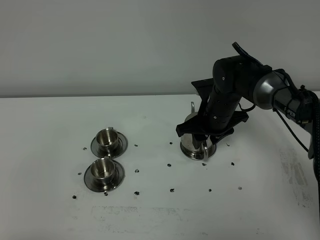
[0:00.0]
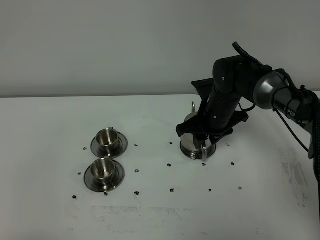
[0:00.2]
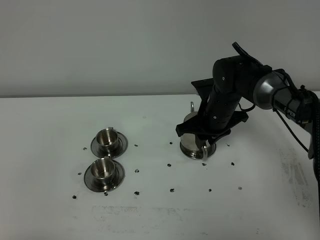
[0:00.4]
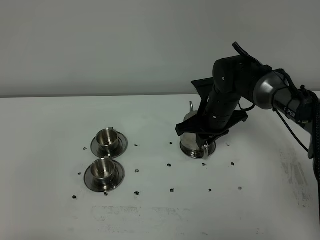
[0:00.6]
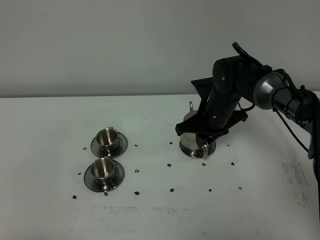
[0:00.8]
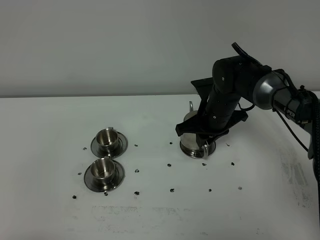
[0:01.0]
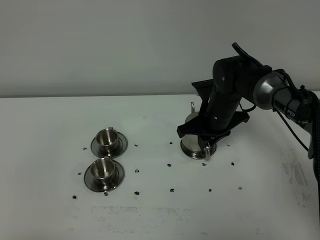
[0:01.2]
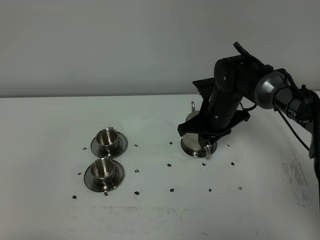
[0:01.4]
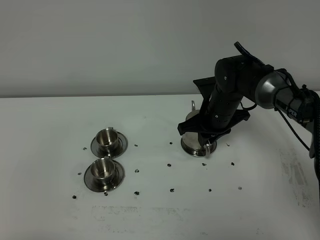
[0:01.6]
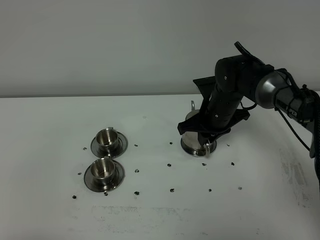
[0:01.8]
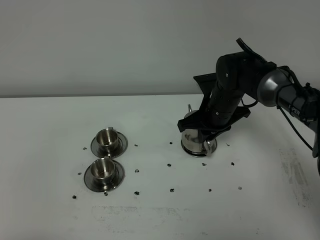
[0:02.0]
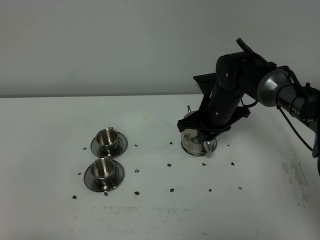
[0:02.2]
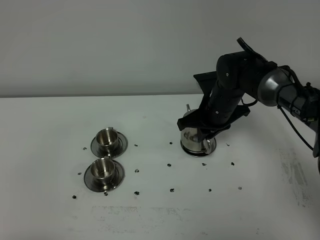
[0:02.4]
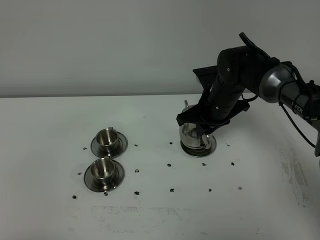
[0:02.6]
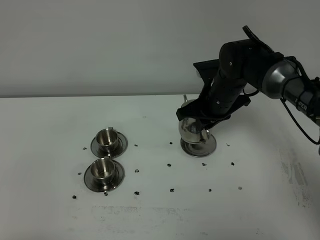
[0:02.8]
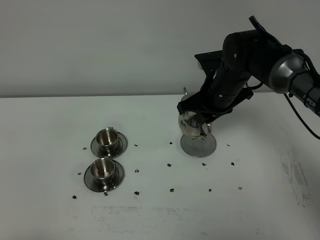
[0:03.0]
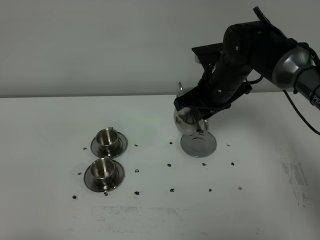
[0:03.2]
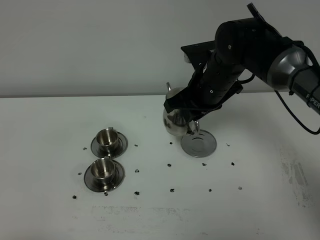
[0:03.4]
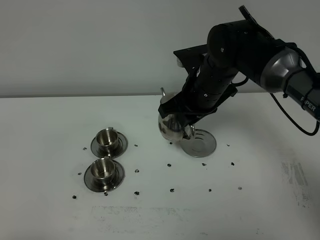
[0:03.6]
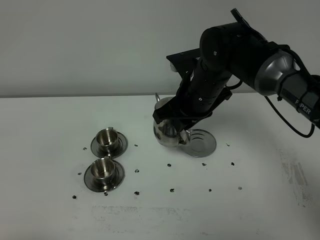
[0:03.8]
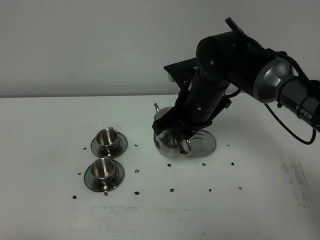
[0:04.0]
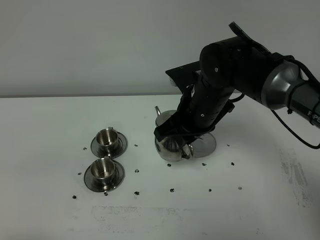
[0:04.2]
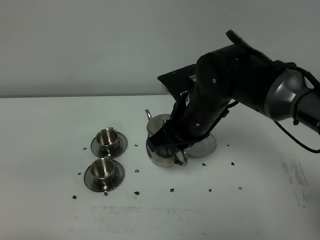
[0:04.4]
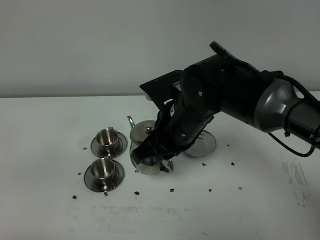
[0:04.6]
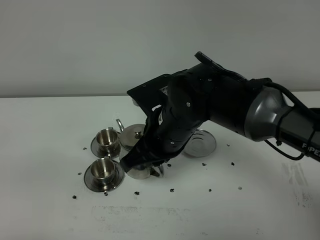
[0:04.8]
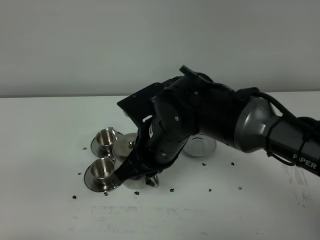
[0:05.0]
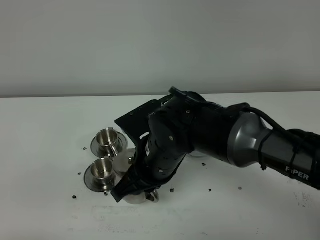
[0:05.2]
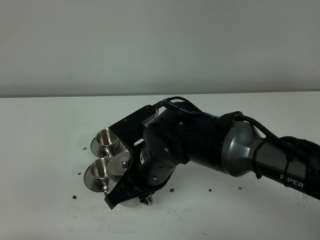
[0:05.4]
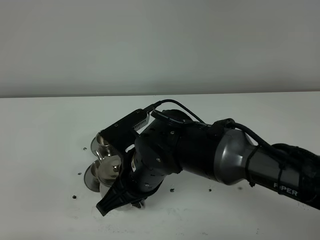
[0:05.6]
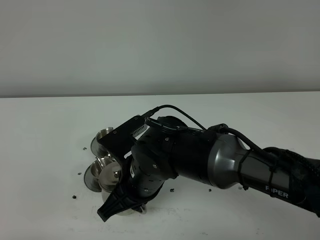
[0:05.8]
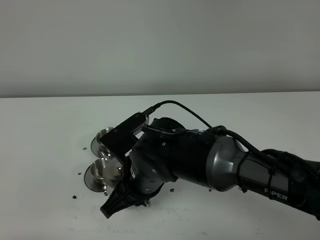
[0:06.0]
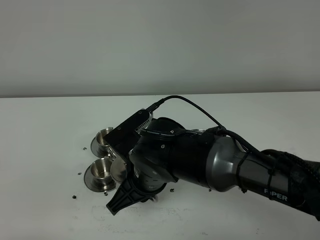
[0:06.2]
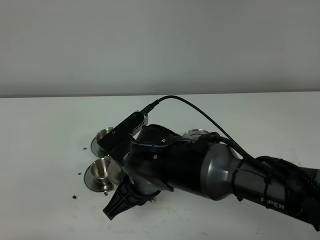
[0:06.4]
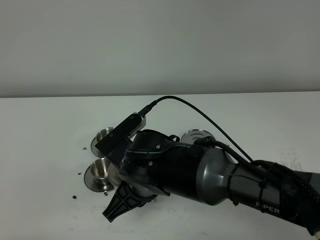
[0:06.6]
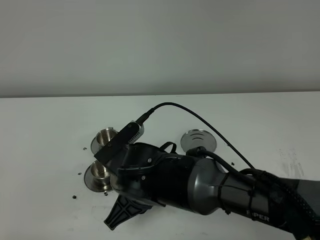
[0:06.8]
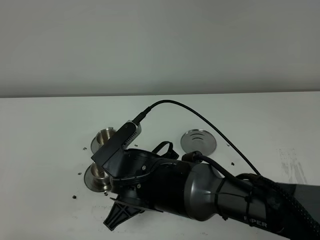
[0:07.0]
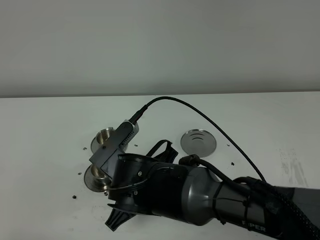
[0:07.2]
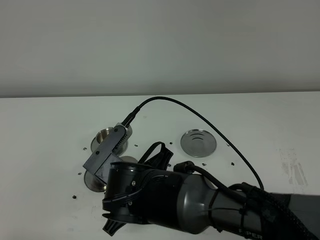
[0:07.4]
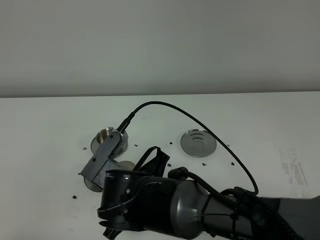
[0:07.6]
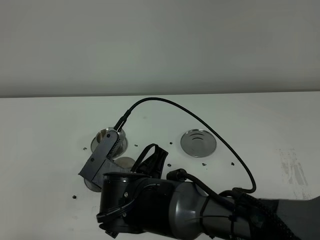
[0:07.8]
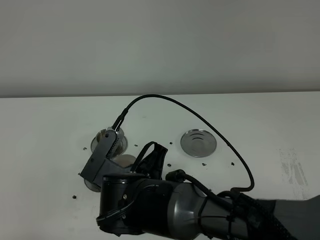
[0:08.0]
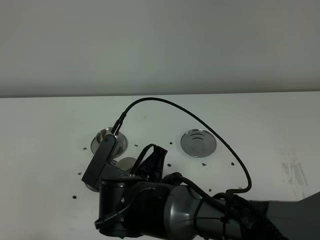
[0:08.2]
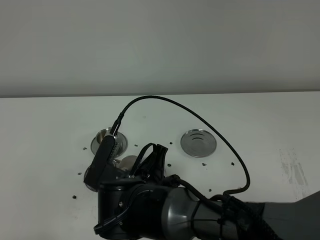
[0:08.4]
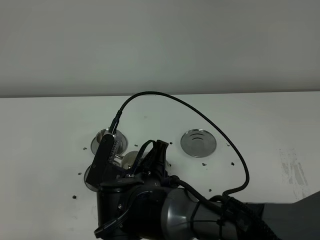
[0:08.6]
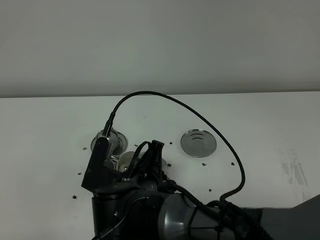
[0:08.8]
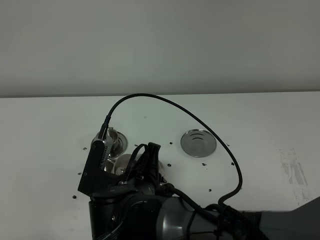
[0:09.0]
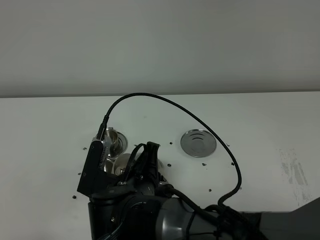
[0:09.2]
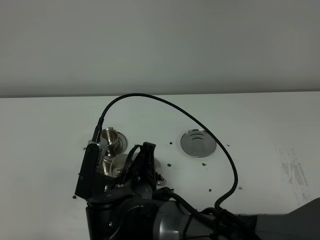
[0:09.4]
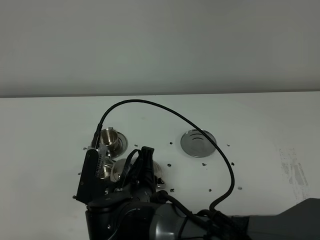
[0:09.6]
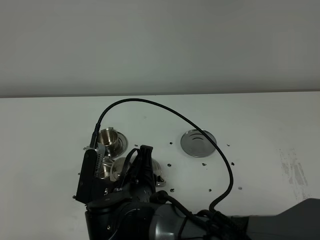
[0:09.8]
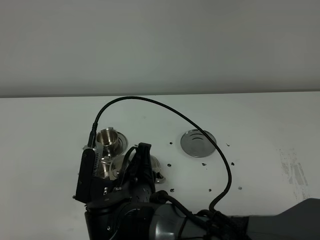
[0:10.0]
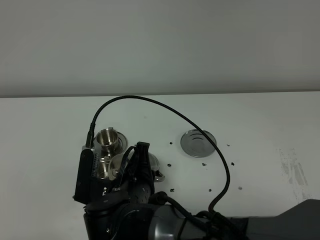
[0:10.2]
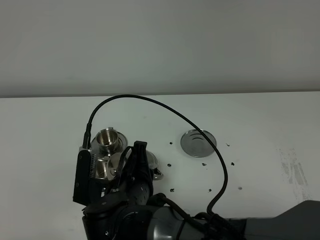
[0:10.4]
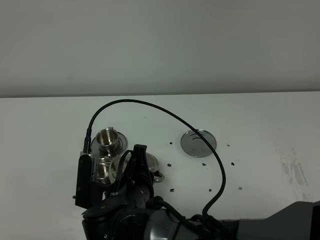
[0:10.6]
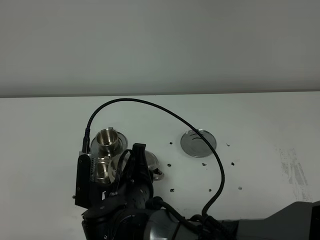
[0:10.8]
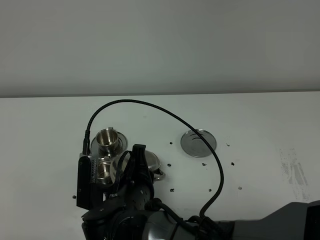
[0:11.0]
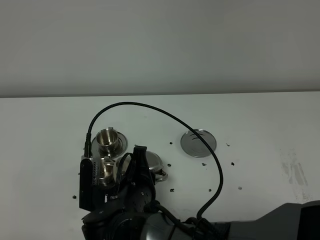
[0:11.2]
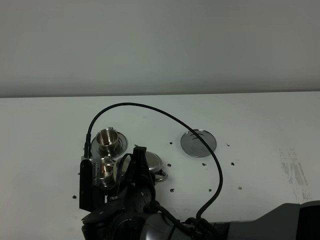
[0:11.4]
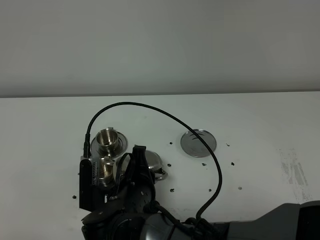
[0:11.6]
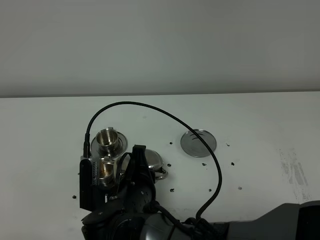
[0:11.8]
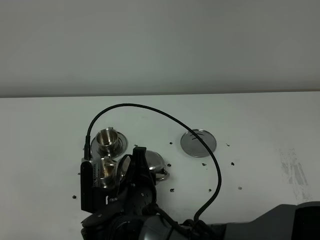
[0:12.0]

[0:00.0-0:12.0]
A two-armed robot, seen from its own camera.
Task of the whole recording: grasp the stainless steel teapot and pour the tea into the two stainless steel teacups one by one, put the stainless steel teapot back in its original place.
Step, 0:00.0 to 0:02.4: Pick up the teapot with the right gripper.
0:00.0 to 0:01.6: The right gripper closes up.
0:01.6 to 0:03.0: The right gripper goes about 5 cm upward.
0:03.0 to 0:04.4: The right gripper goes approximately 10 cm backward and to the left.
0:04.4 to 0:06.0: The right gripper travels backward, to the left and downward by approximately 10 cm.
0:09.0 to 0:12.0: The grippers make only small movements.

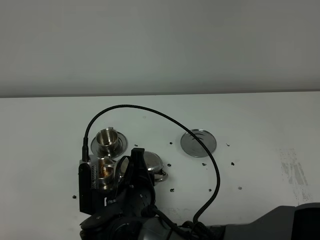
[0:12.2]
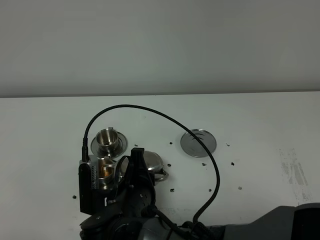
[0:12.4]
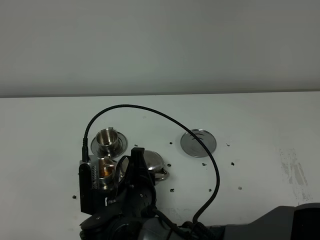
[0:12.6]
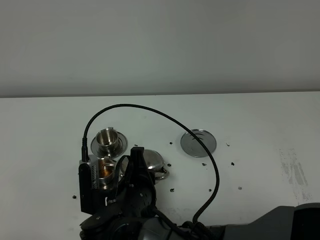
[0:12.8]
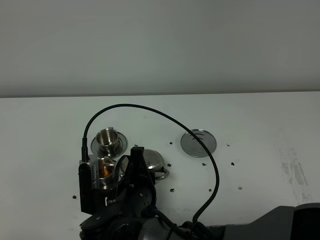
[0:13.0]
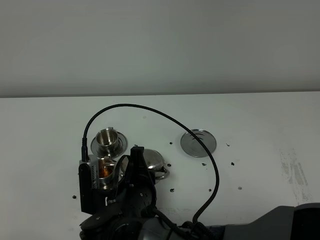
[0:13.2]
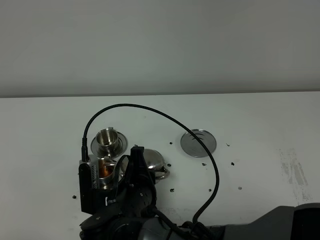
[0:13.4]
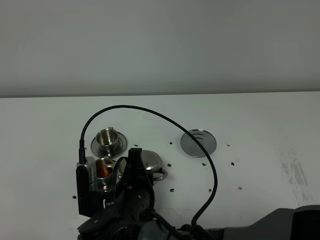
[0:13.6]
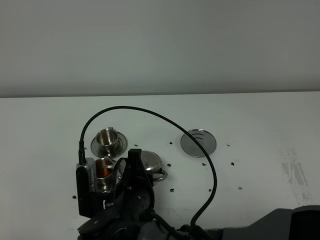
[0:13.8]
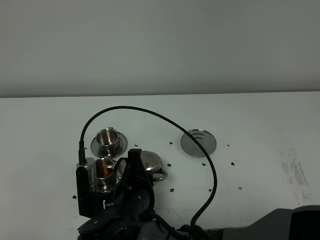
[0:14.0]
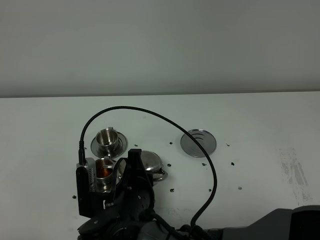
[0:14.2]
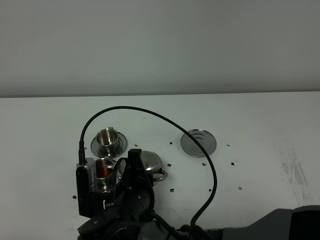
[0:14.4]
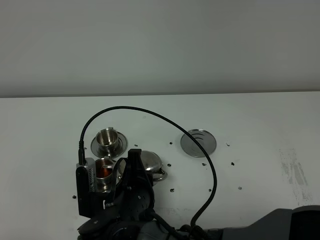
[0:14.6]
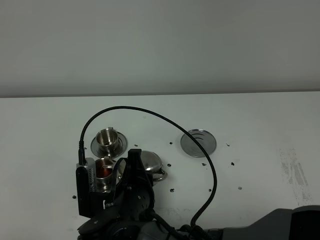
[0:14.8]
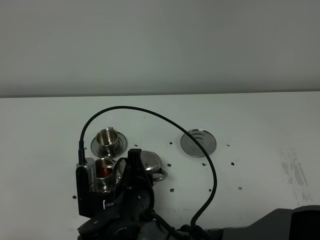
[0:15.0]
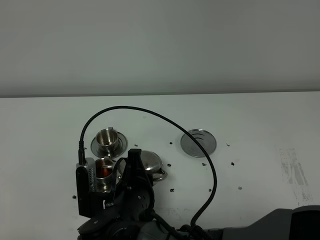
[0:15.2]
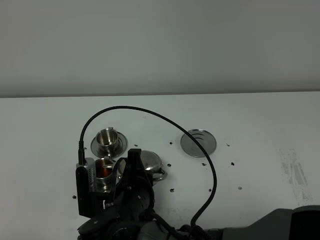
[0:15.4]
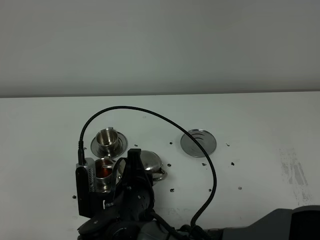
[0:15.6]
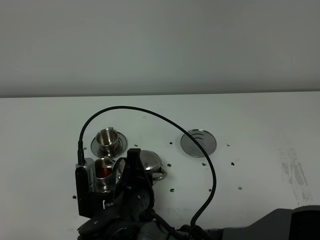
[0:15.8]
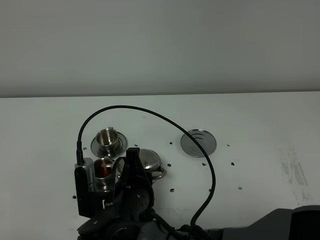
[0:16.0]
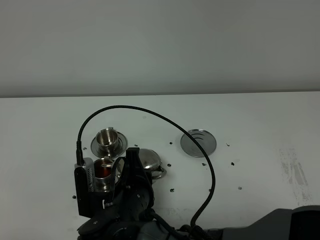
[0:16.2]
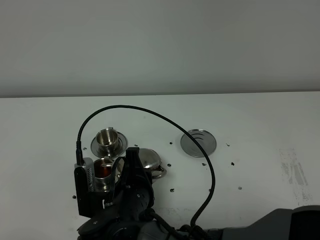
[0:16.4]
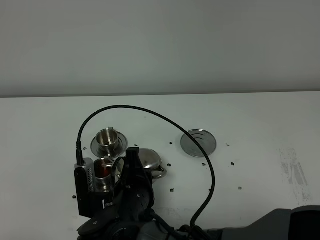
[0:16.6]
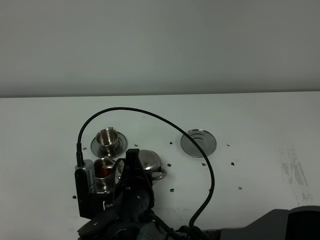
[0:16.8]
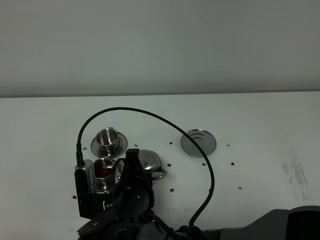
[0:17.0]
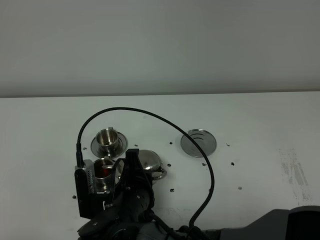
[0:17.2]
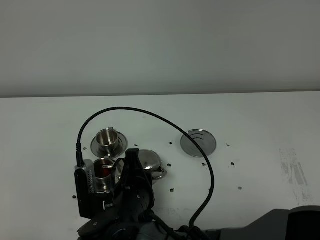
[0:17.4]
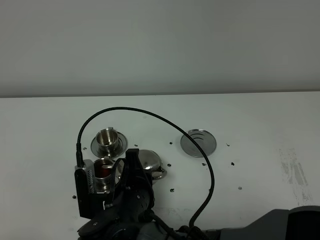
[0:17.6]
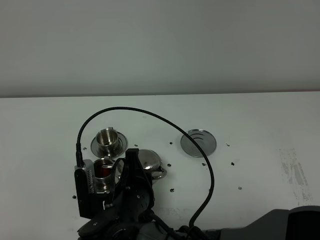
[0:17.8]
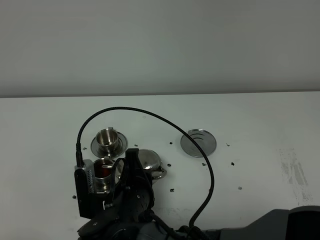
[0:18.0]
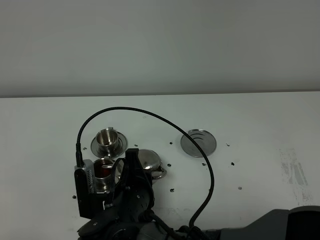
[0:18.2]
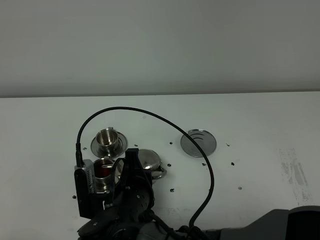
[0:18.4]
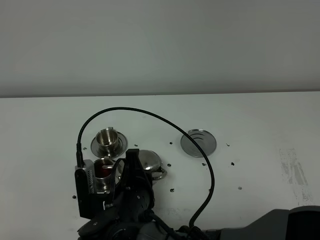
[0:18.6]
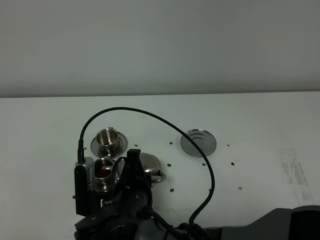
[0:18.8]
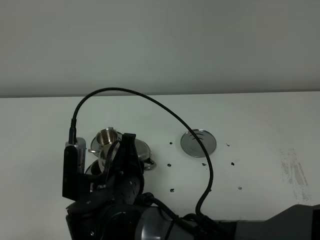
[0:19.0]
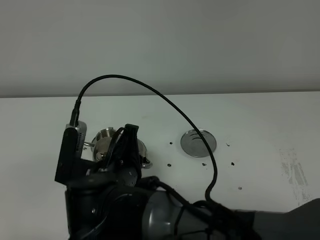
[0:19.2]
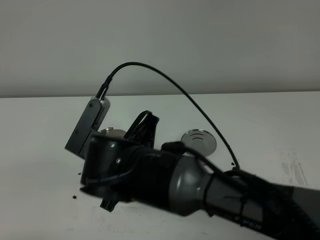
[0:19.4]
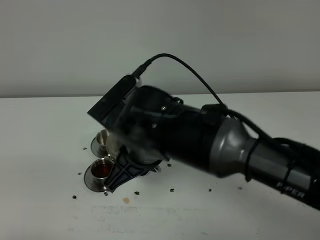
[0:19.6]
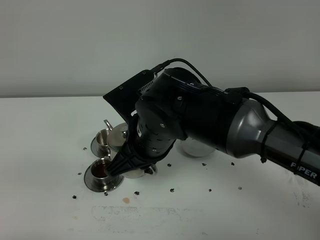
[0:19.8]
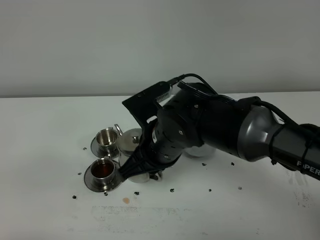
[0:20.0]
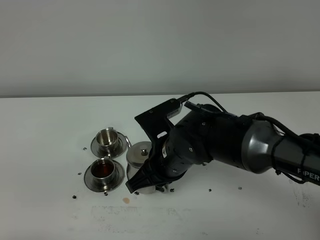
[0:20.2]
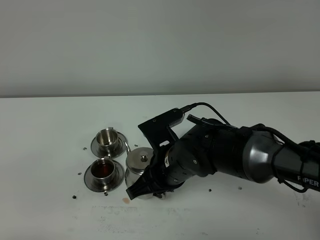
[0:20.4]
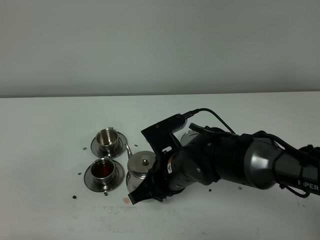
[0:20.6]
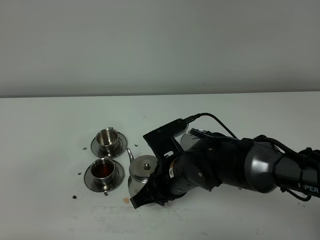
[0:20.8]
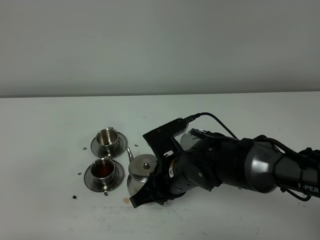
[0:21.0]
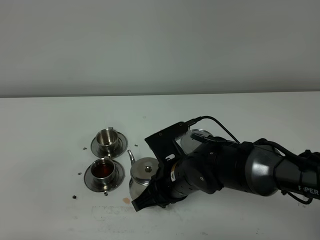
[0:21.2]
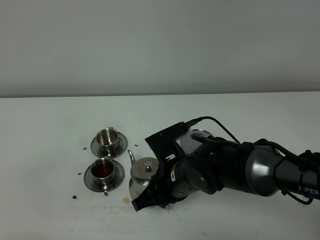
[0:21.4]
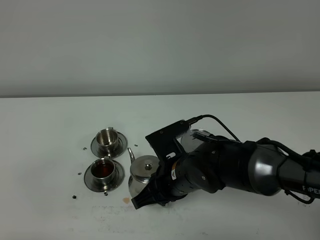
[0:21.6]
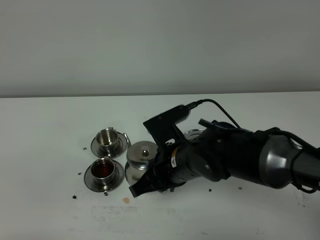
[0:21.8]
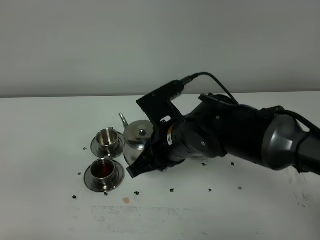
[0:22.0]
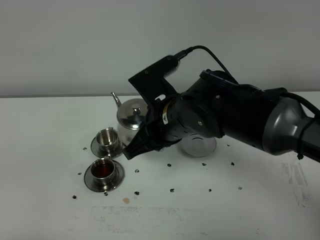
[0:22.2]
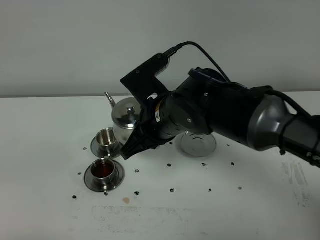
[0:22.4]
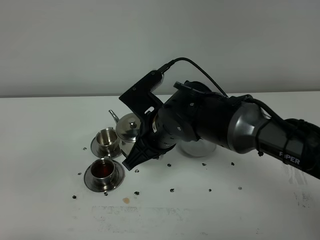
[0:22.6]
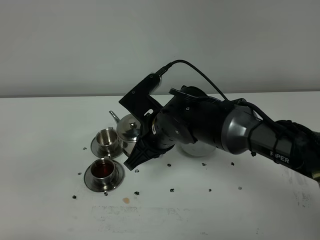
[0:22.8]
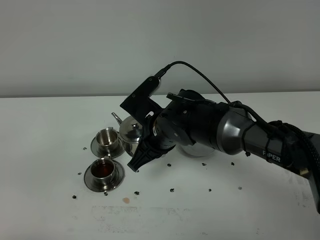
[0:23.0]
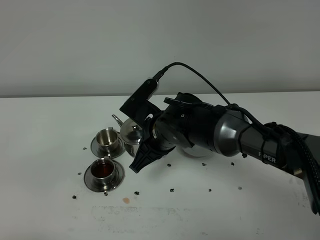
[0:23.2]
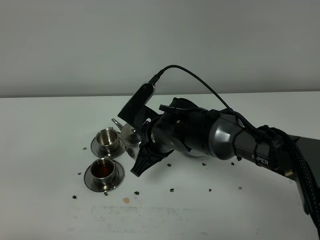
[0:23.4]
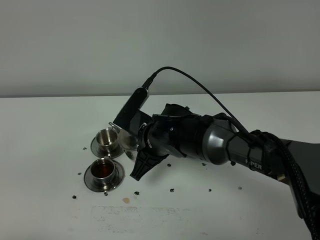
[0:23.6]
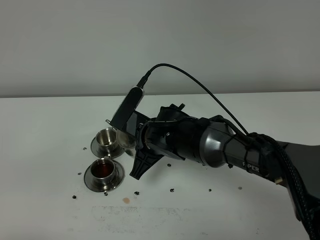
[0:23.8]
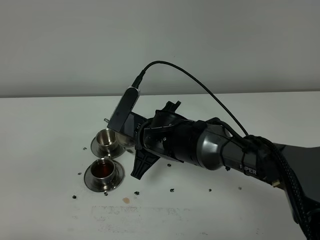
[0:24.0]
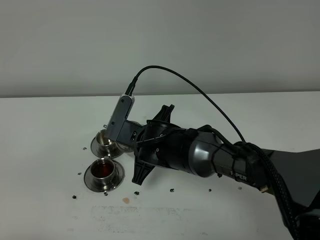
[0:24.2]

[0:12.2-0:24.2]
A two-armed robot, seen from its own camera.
Task of the whole recording: grasp the stainless steel teapot and pour the tea into the two stainless steel teacups one by one, put the stainless steel teapot back in its original place.
0:12.2 to 0:16.6: The two grippers keep their place.
0:16.6 to 0:18.2: The two grippers keep their place.
0:18.2 to 0:19.8: The right gripper moves upward, about 15 cm.
0:19.8 to 0:21.2: The right gripper moves downward, about 10 cm.
0:21.2 to 0:22.6: The right gripper moves upward, approximately 5 cm.
0:22.6 to 0:24.2: The right gripper goes some 5 cm downward.
